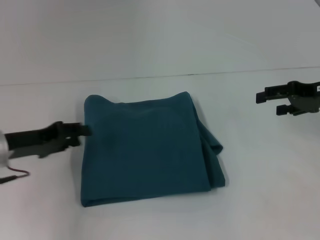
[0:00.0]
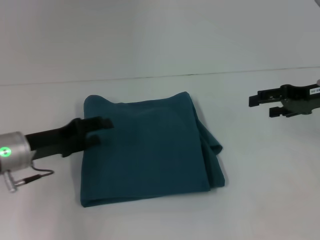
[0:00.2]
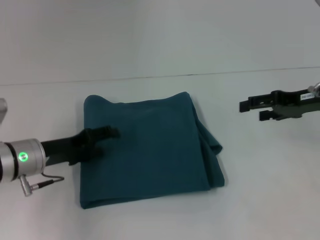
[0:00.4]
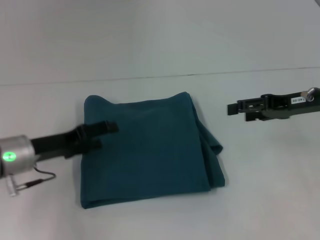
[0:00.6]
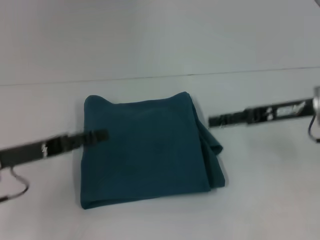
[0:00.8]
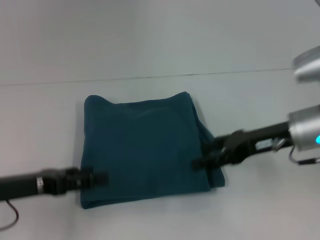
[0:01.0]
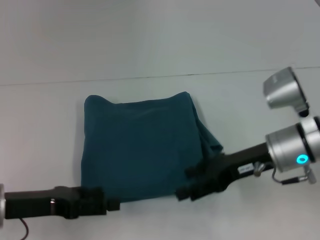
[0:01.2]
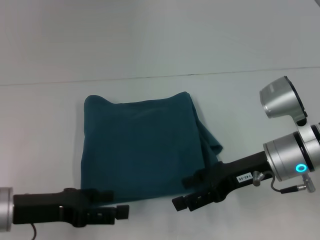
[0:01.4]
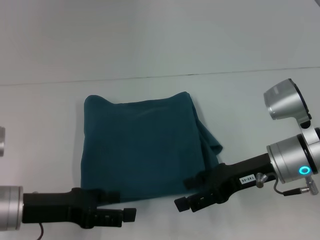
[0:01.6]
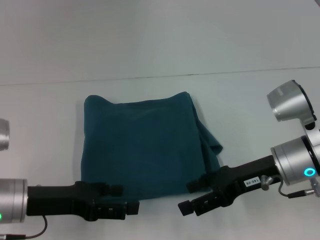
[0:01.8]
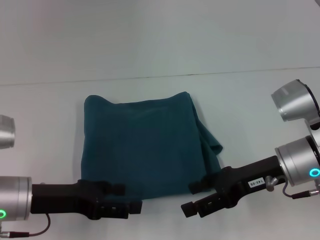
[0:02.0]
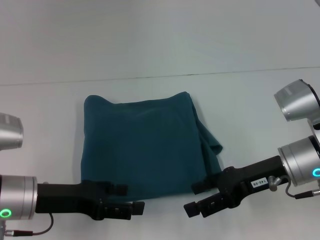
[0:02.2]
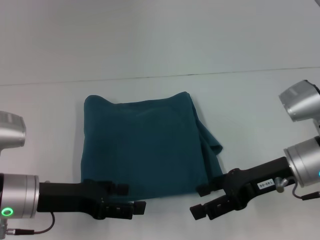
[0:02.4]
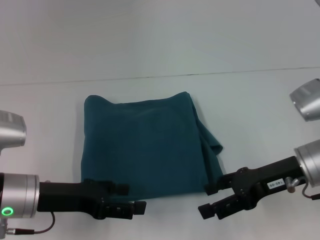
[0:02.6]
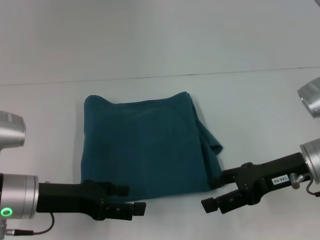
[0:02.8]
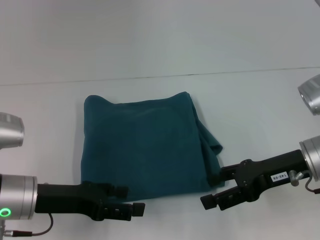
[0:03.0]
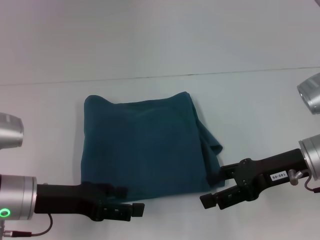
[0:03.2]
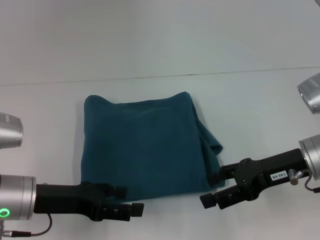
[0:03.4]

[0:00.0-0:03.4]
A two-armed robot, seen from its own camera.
0:00.0 to 0:01.6: The left gripper shifts about 5 cm backward, and opens its fingers, while the right gripper heads to the left, backward and downward, covering roughly 15 cm.
0:01.6 to 0:03.4: There are only small adjustments of the grippers.

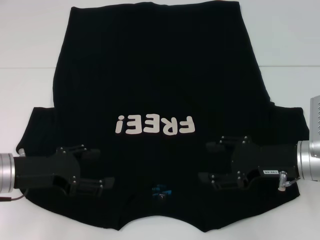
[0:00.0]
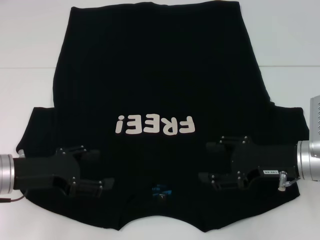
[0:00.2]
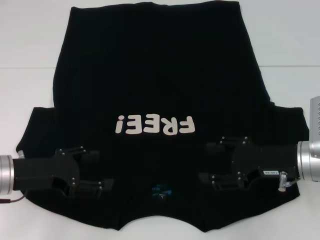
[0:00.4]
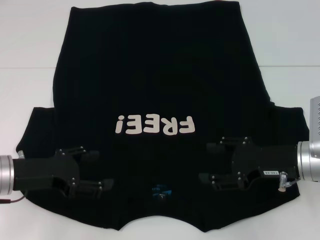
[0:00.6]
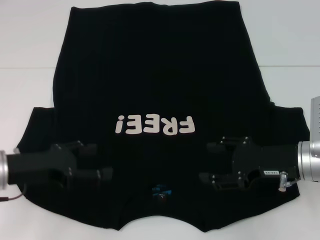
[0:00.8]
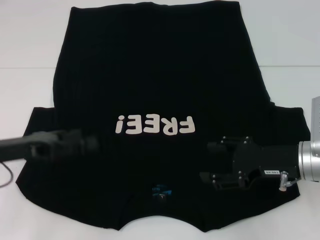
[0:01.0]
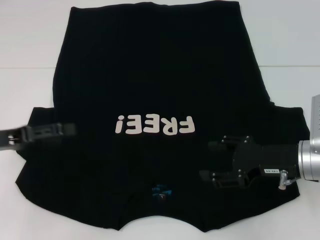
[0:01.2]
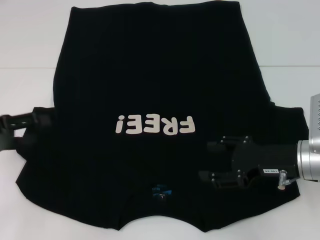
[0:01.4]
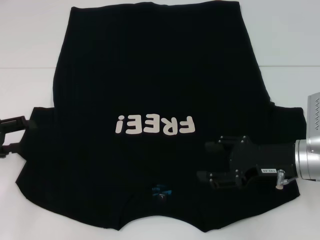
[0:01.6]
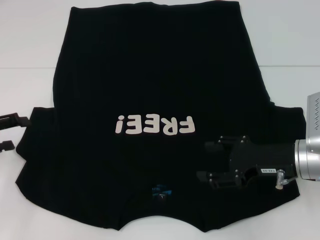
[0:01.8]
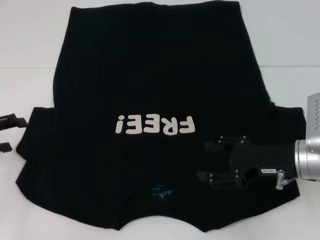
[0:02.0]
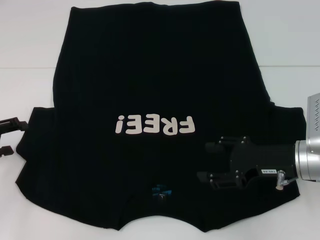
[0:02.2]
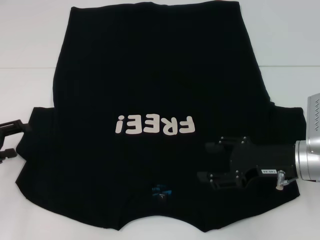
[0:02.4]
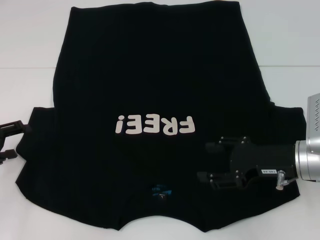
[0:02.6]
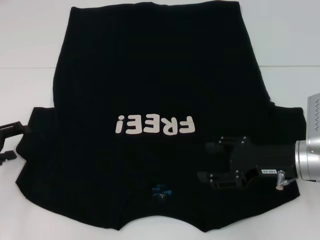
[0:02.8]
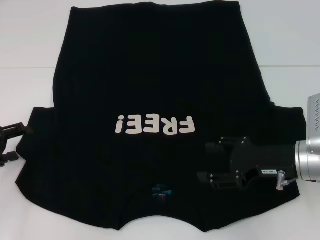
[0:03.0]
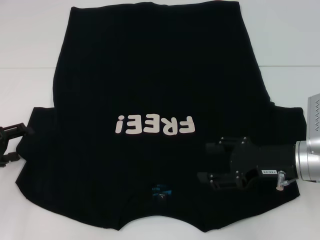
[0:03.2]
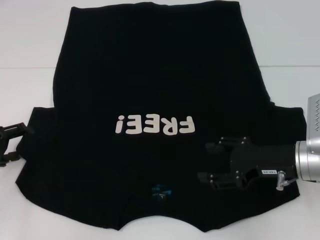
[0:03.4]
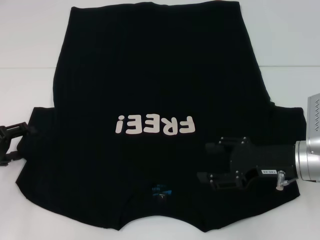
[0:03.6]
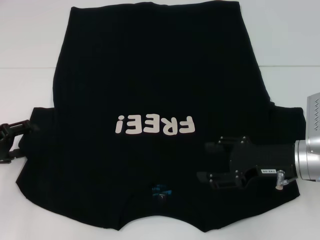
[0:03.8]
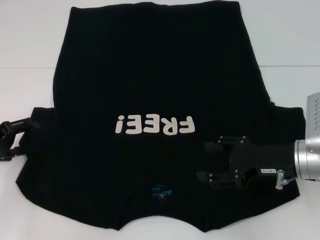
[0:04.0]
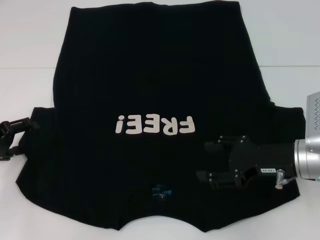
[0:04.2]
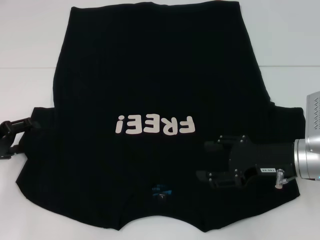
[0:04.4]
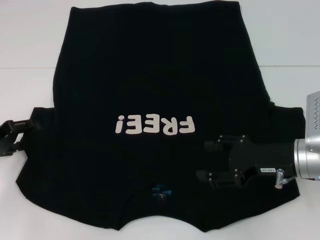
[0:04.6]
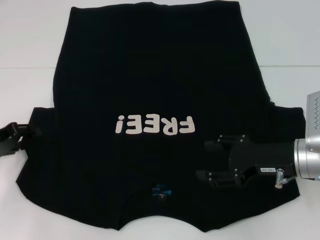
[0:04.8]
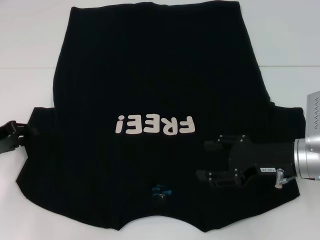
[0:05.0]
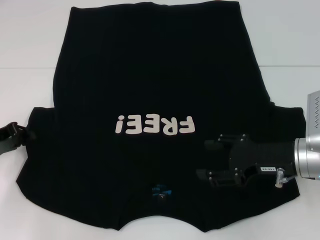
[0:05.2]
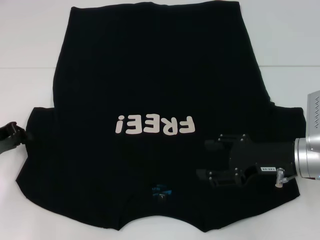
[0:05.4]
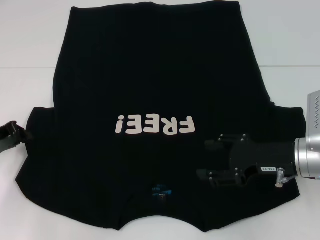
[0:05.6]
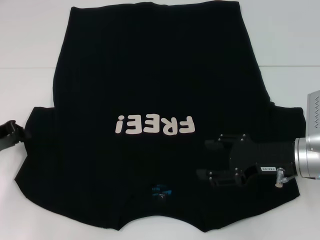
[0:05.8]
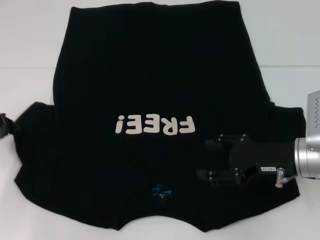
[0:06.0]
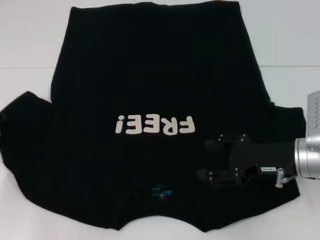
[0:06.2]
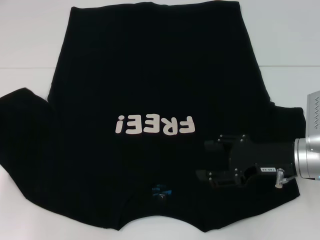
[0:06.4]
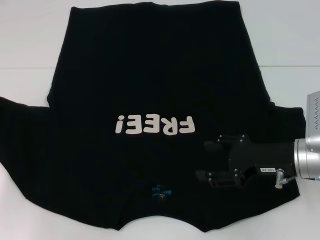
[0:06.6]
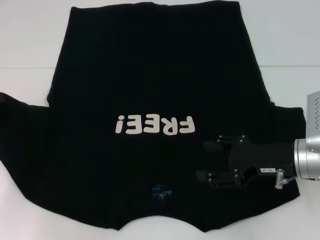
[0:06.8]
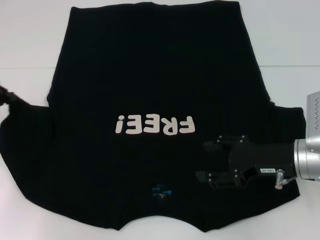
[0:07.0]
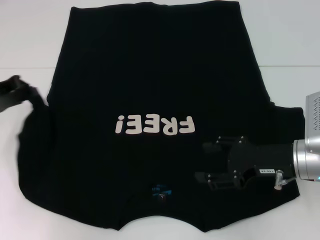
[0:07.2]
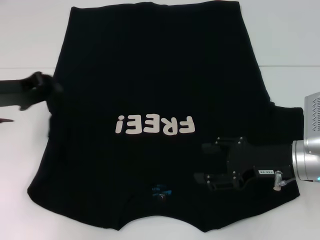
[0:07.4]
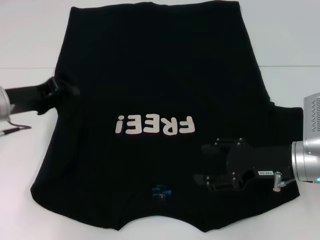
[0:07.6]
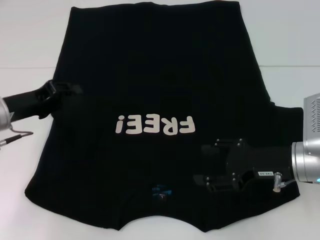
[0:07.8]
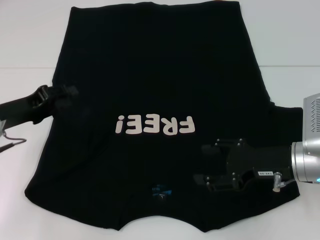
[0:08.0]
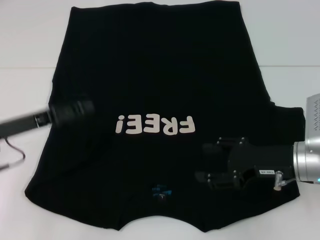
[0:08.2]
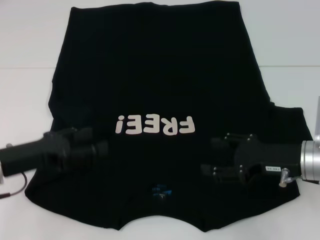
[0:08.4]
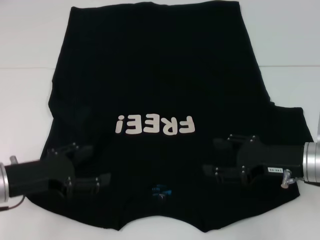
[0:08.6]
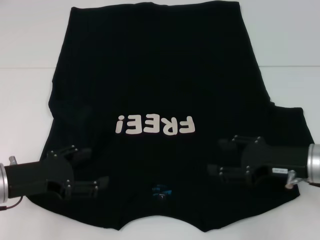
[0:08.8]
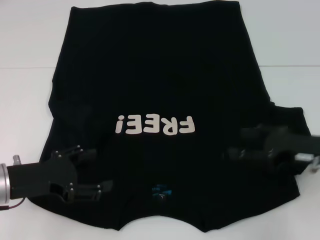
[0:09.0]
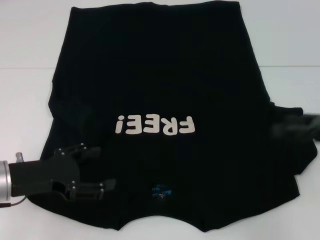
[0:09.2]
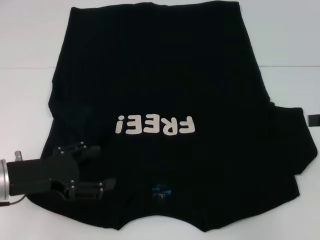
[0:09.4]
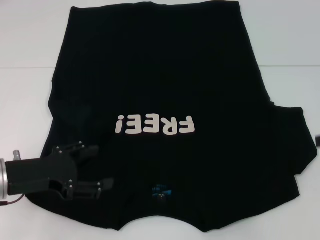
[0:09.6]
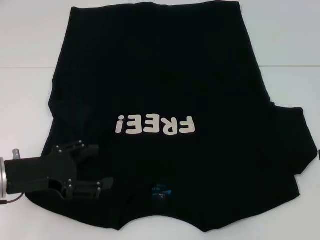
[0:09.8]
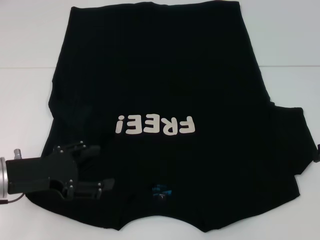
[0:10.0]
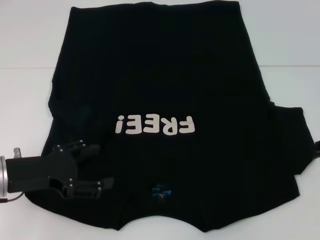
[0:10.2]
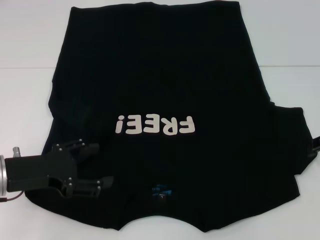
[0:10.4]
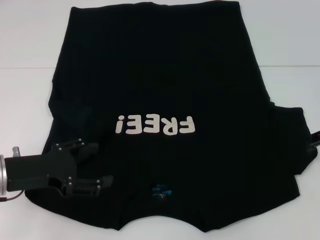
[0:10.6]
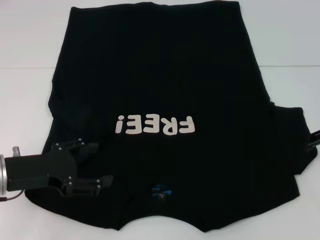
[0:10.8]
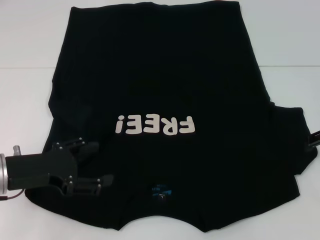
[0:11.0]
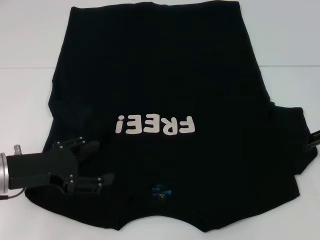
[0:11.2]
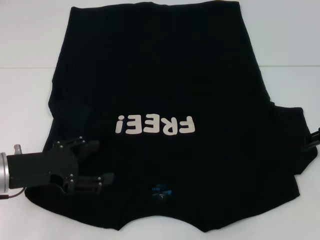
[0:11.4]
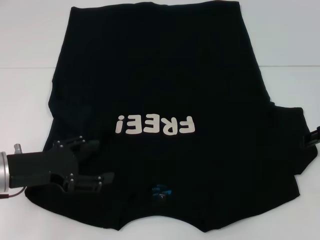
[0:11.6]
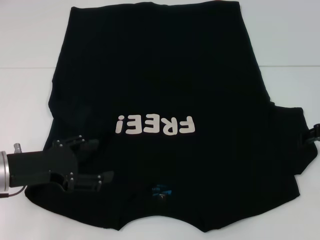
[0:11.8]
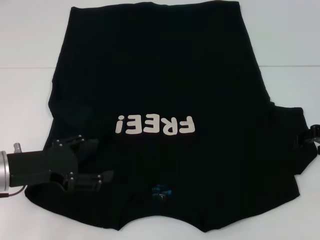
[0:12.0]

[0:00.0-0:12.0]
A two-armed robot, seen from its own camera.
Step, 0:00.0 to 0:07.8: Fold the bottom left sleeve with your left hand.
0:00.0 to 0:01.6: The left gripper goes approximately 10 cm to the left.
0:01.6 to 0:04.4: There are only small adjustments of the grippers.
0:04.4 to 0:06.0: The left gripper closes its fingers.
0:06.0 to 0:07.6: The left gripper is displaced to the right by approximately 10 cm.
0:07.6 to 0:09.0: The left gripper shifts roughly 10 cm backward, and opens, while the right gripper is displaced to the right by about 5 cm.
0:09.0 to 0:10.4: The right gripper shifts some 10 cm upward and to the right.
0:10.4 to 0:12.0: The grippers move only a little.

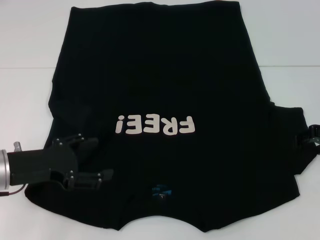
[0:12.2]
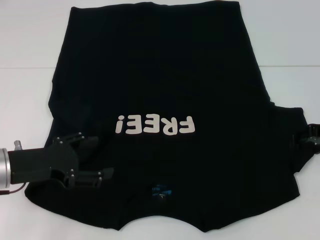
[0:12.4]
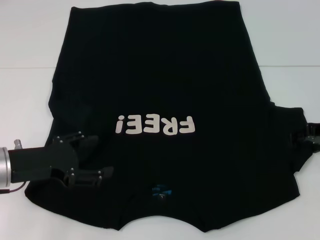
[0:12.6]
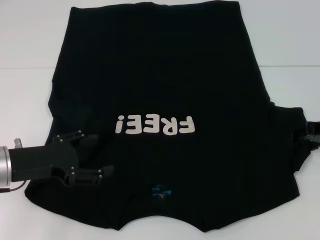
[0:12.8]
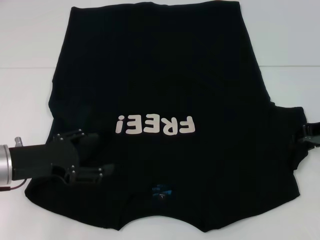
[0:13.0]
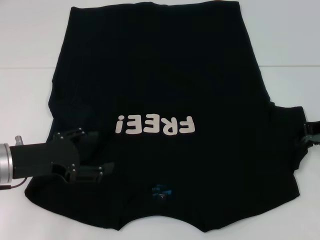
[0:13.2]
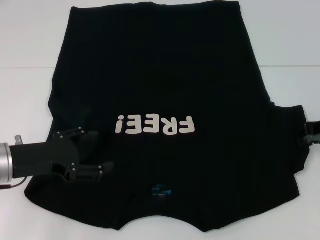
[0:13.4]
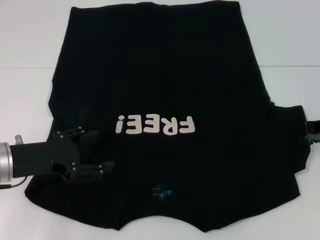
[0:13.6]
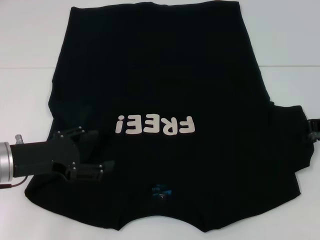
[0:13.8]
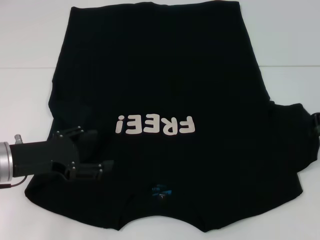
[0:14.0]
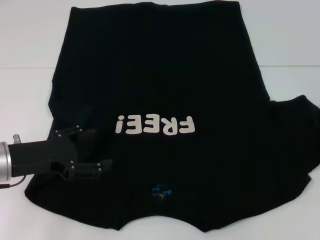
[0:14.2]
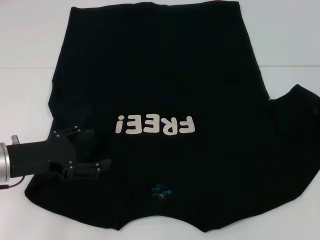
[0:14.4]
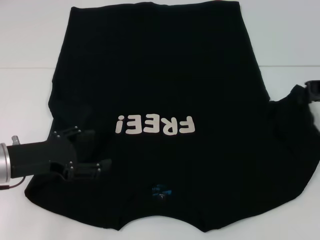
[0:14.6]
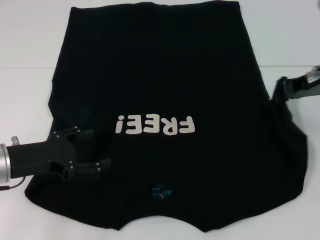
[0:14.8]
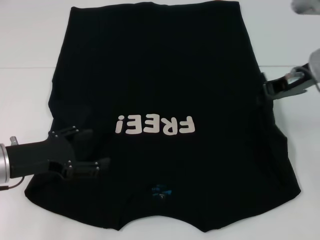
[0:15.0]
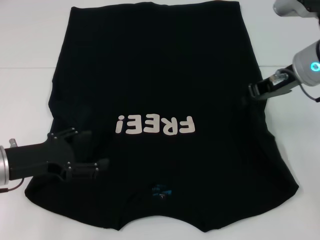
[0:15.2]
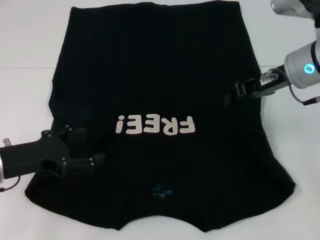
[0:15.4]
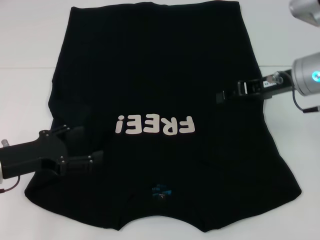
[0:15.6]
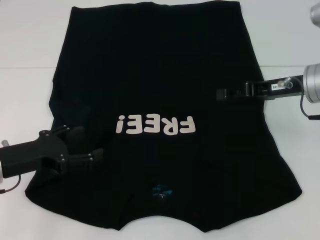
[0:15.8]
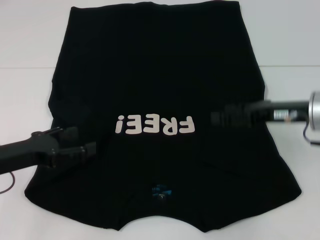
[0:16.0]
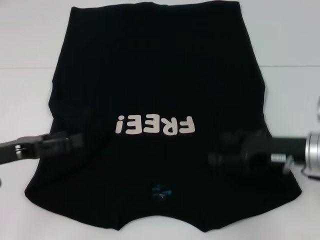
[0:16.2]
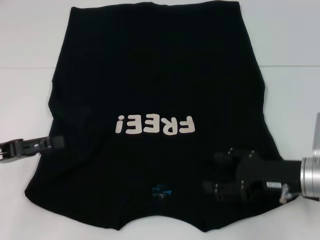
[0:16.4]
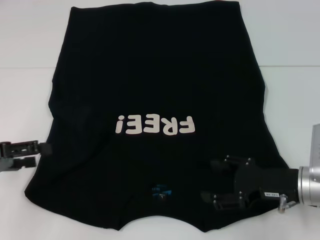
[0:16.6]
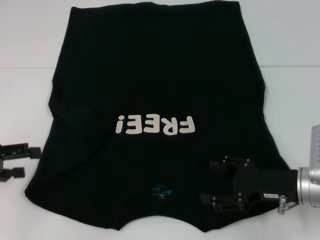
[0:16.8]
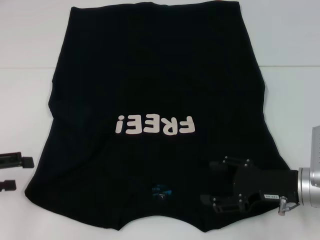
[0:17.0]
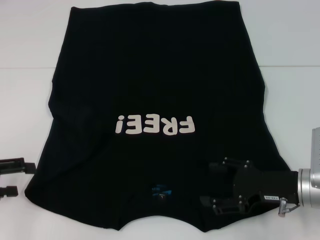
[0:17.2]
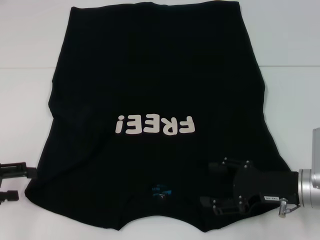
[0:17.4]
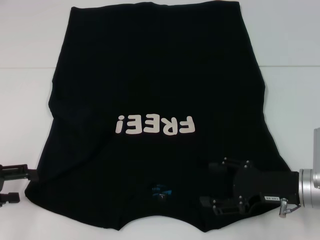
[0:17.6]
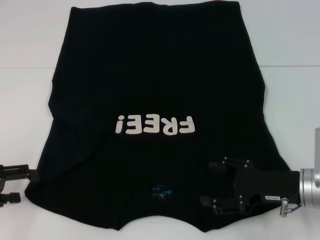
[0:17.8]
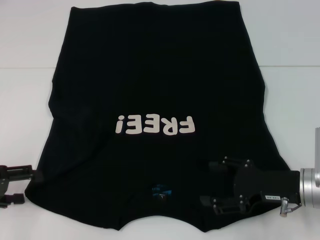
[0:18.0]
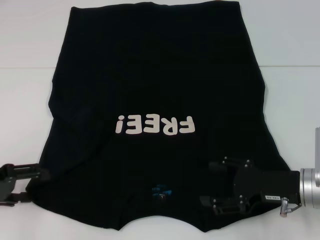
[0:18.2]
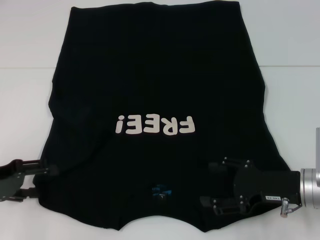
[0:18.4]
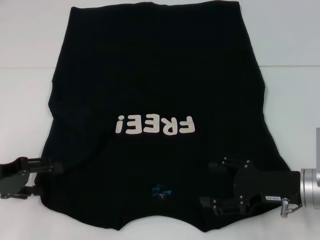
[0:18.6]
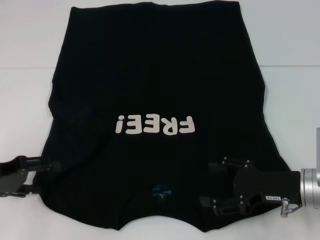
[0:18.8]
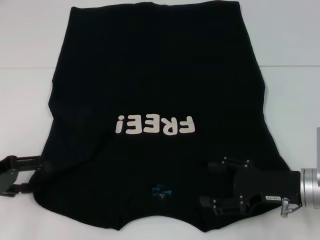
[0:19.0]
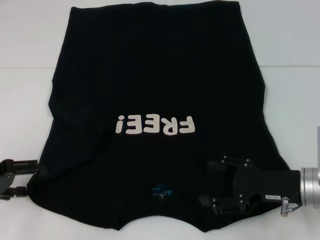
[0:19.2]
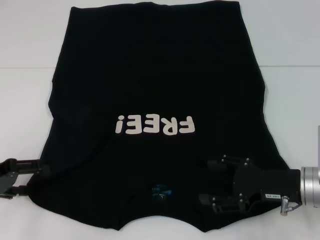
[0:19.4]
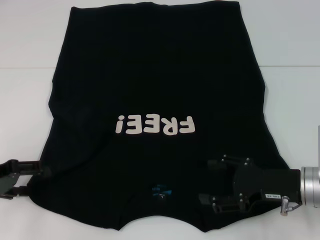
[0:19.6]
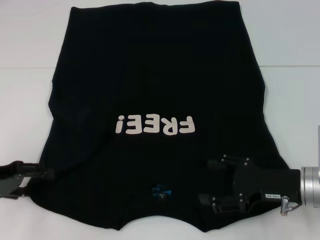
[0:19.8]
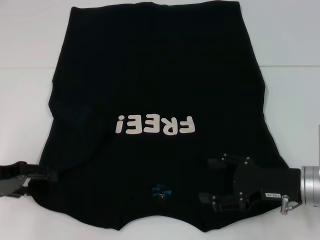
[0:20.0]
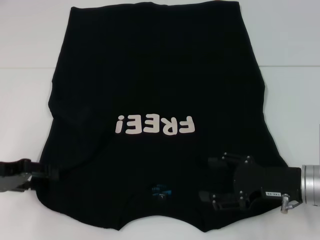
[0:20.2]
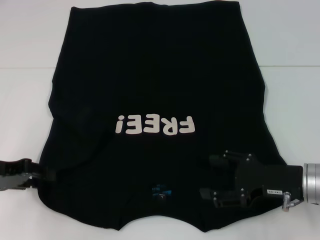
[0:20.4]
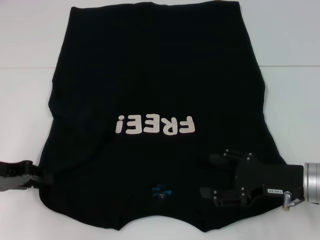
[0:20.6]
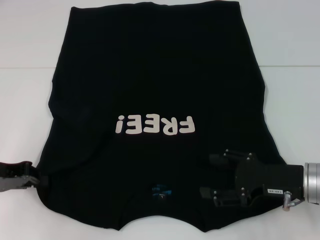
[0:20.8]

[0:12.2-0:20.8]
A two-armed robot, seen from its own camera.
Step, 0:12.2 to 0:15.8: Fold the bottom right sleeve with your right hand.
0:12.2 to 0:13.6: The right gripper closes up.
0:13.6 to 0:15.0: The right gripper goes roughly 10 cm to the left and upward.
0:15.0 to 0:16.6: The right gripper is displaced downward and backward by some 20 cm, and opens; the left gripper is displaced to the left by roughly 10 cm.
0:18.0 to 0:19.4: The grippers move only a little.
0:19.4 to 0:20.8: The left gripper closes its fingers.
